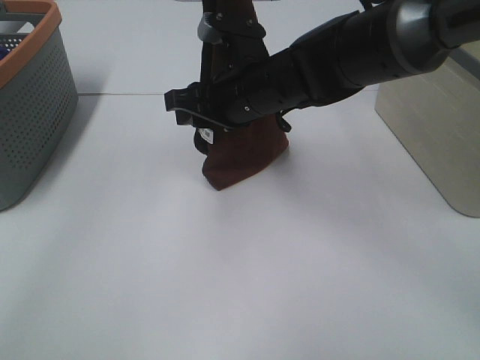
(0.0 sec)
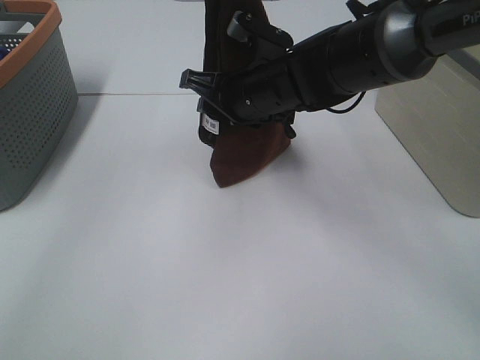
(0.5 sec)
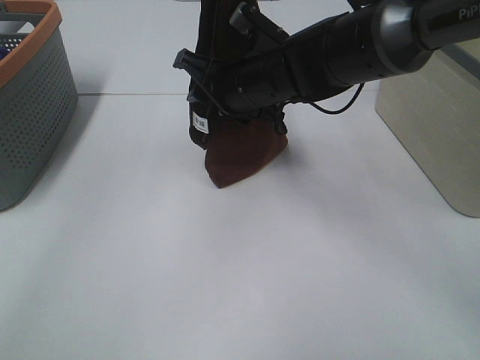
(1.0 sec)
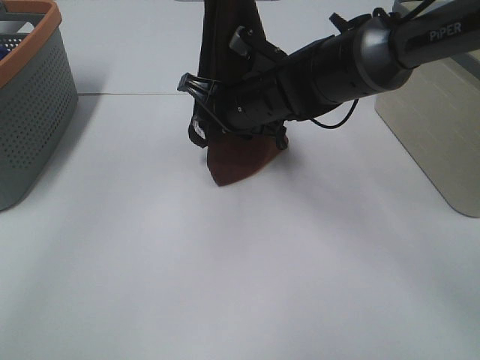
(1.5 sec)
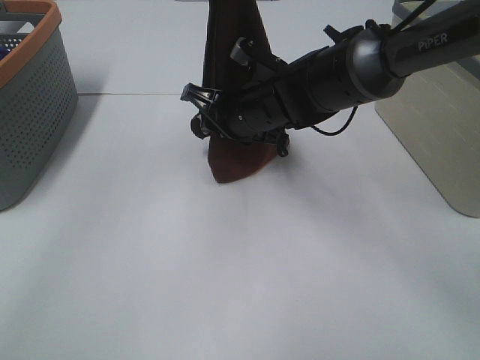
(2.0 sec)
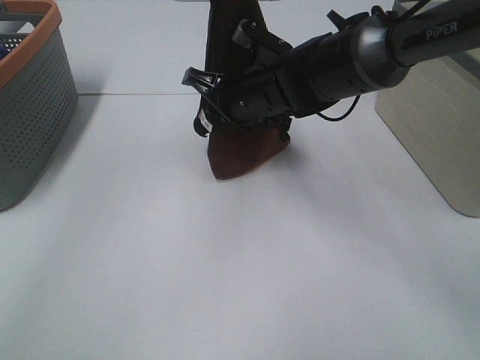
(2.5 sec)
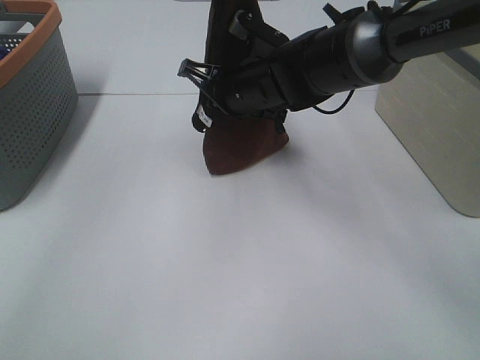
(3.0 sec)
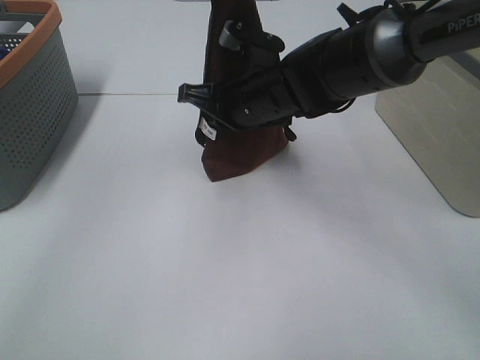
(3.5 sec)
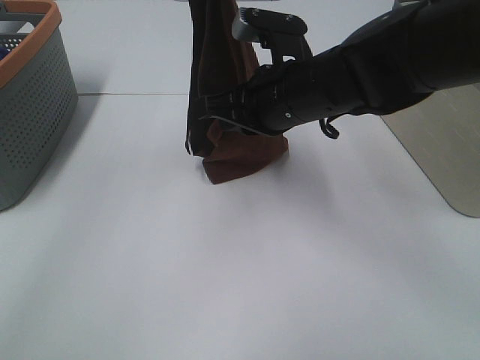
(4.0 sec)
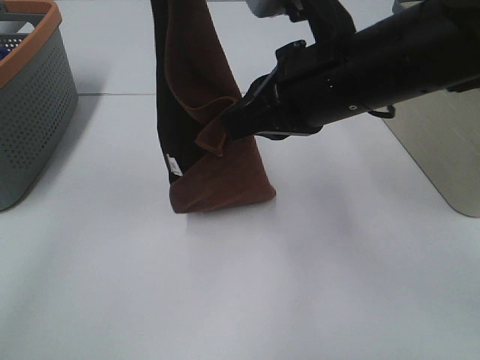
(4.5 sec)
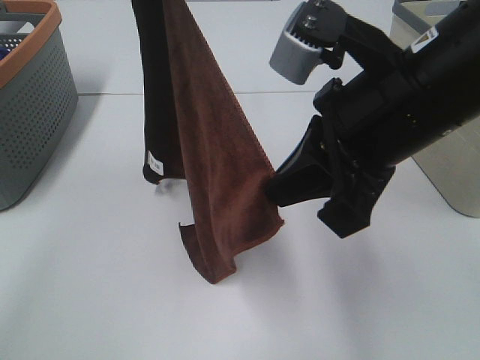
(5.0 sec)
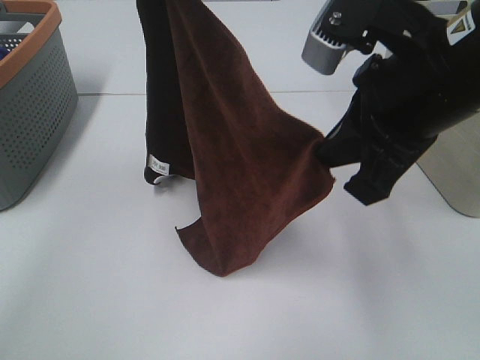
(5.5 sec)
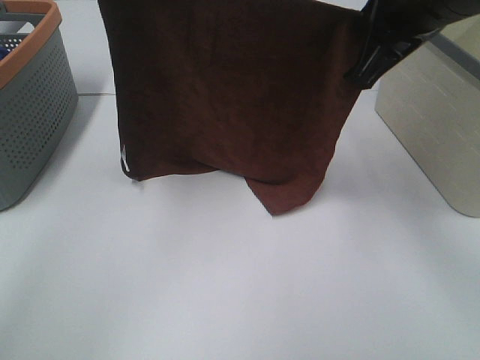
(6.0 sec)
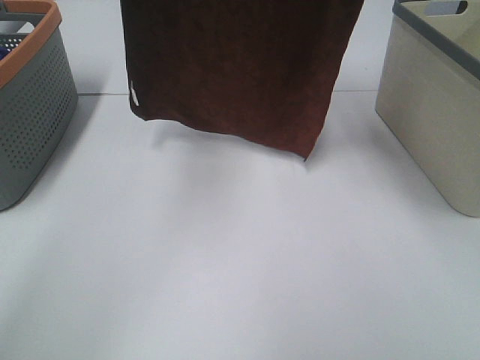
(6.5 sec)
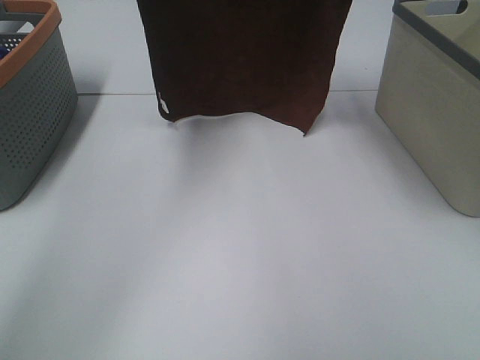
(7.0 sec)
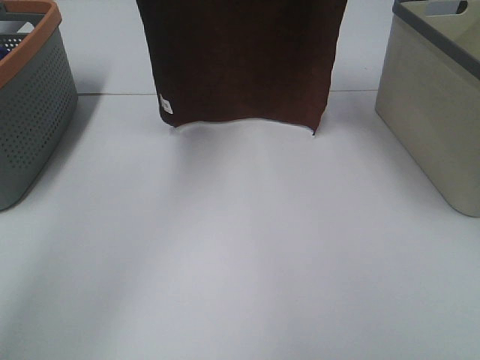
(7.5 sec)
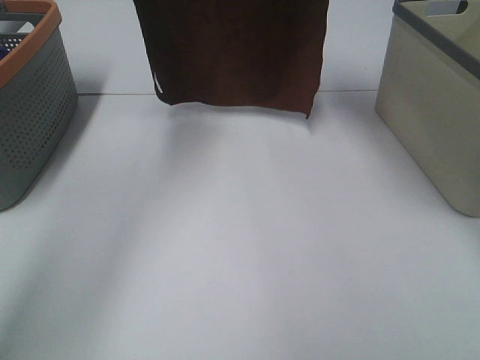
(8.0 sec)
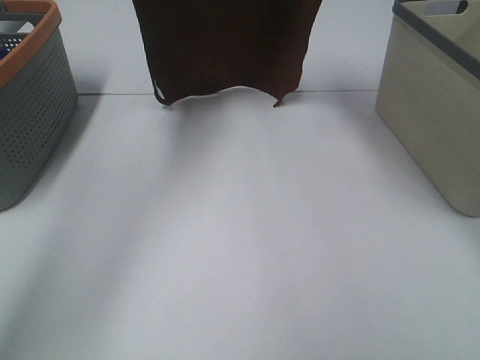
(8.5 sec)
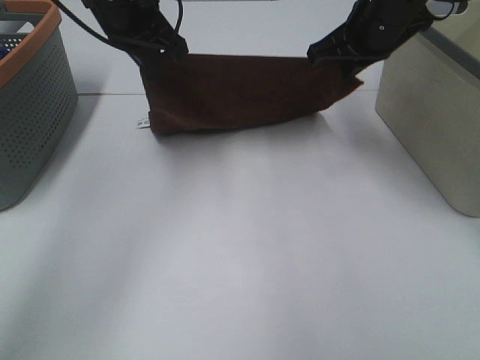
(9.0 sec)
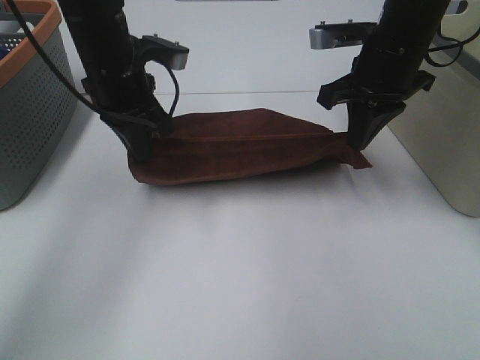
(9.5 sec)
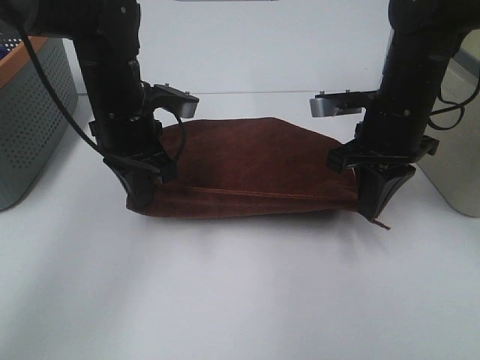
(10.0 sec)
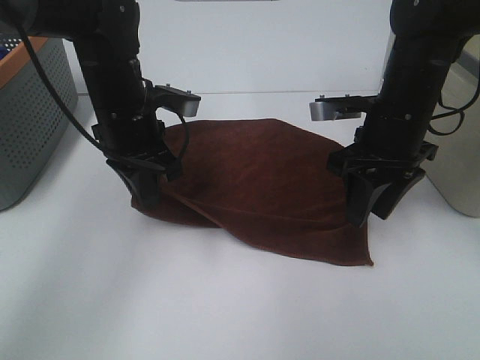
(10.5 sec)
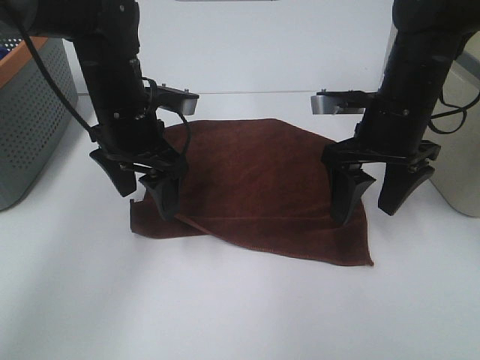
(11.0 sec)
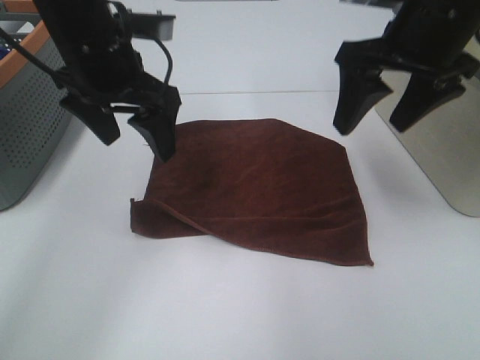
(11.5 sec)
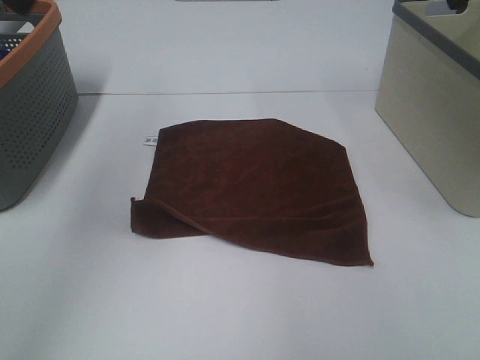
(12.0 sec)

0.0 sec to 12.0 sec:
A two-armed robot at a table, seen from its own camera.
Task of the whole recording: Remove the towel and place it.
Step, 1.5 sec to 4.5 sec: Left hand: spread the brown towel flat on the table.
Step, 1.5 sec to 4.5 sec: Right hand: spread the brown towel flat on the table.
2.0 sec to 4.0 sec: The right gripper travels backward and upward by about 10 cm, and closes its fingers.
4.0 sec to 6.0 sec: The left gripper shifts roughly 5 cm to the left. The right gripper shifts approximately 10 cm upward.
6.0 sec to 8.0 sec: The left gripper goes approximately 10 cm forward. The right gripper travels forward by roughly 20 cm.
8.0 sec to 10.0 sec: Both grippers travel together downward and backward, roughly 20 cm.
10.0 sec to 12.0 sec: The right gripper is displaced upward by some 25 cm, and opens up. Meanwhile the left gripper moves upward and to the left, roughly 25 cm, and opens its fingers.

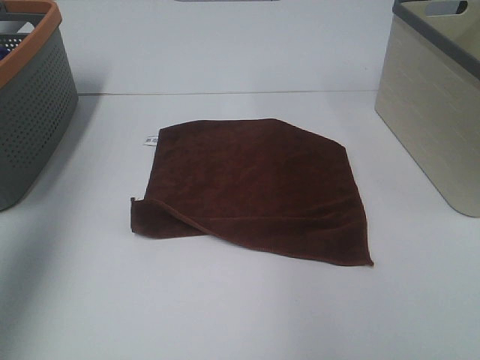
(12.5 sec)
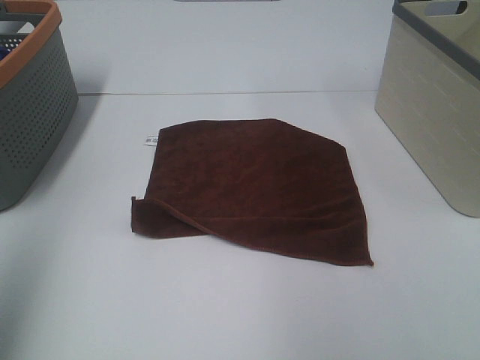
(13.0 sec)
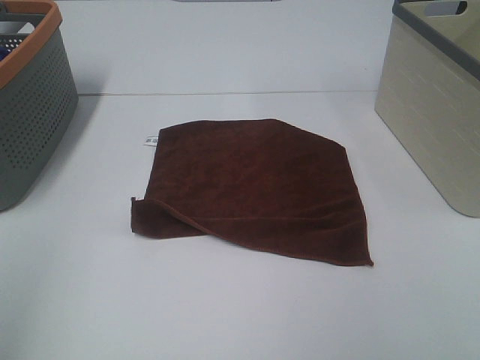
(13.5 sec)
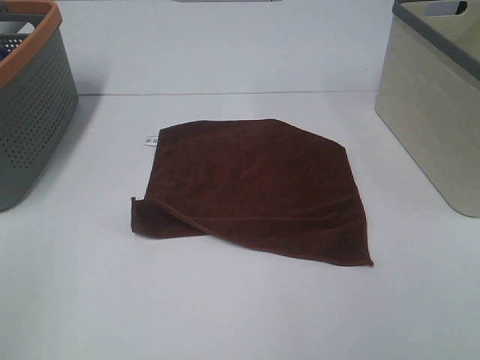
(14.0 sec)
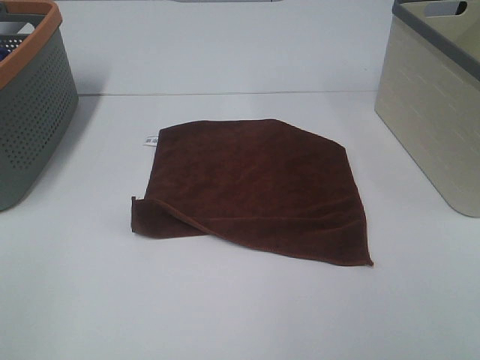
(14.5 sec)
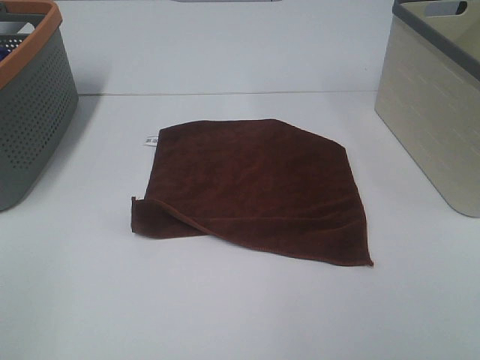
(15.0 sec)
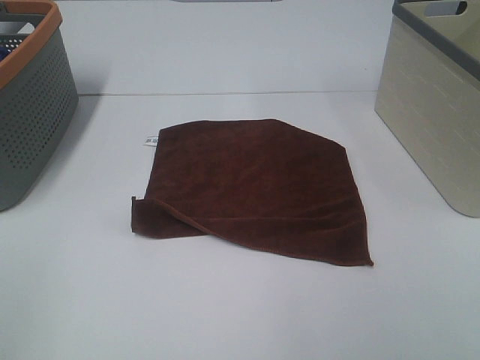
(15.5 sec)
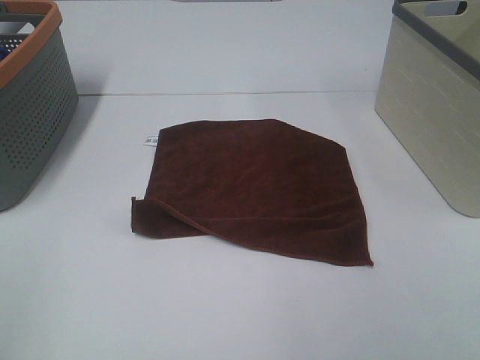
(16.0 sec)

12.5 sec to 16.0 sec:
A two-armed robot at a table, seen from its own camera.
Task of the whole recording: Remove the towel and place it.
12.5 sec to 14.5 sec: The left gripper moves backward and downward, some 30 cm.

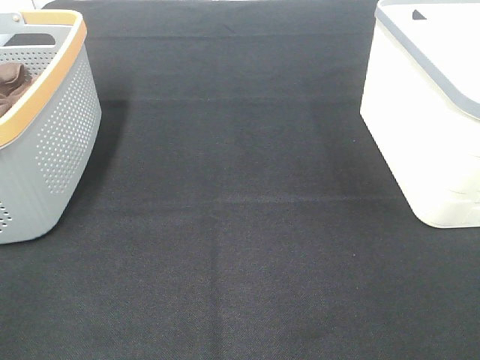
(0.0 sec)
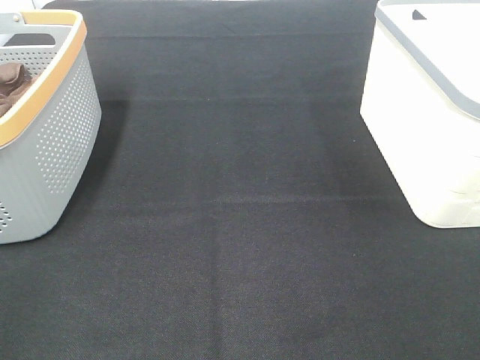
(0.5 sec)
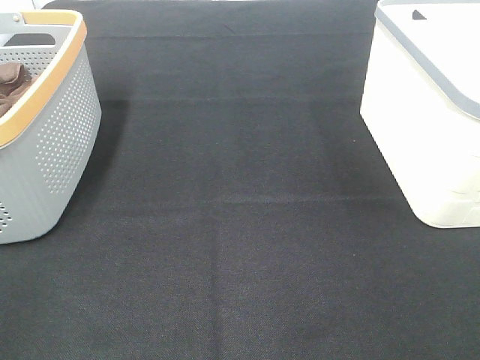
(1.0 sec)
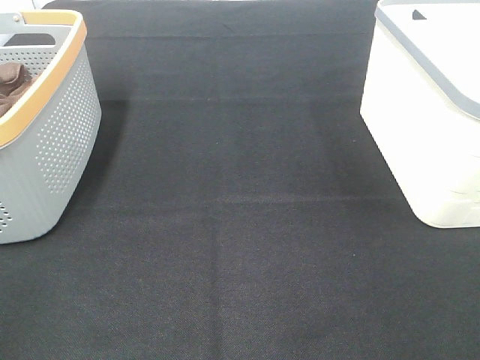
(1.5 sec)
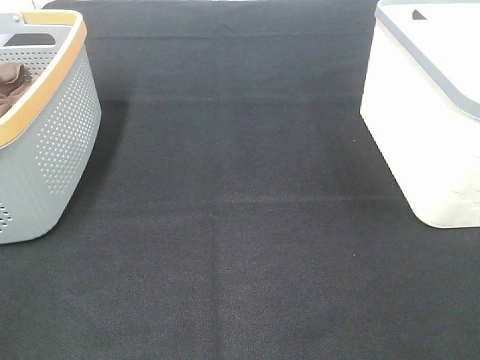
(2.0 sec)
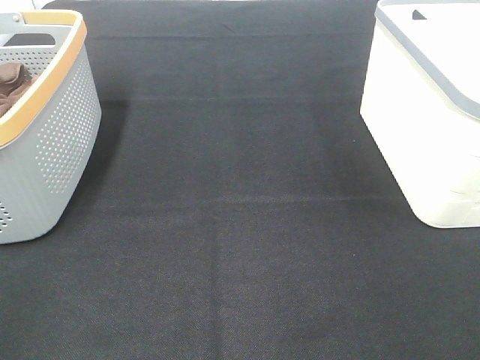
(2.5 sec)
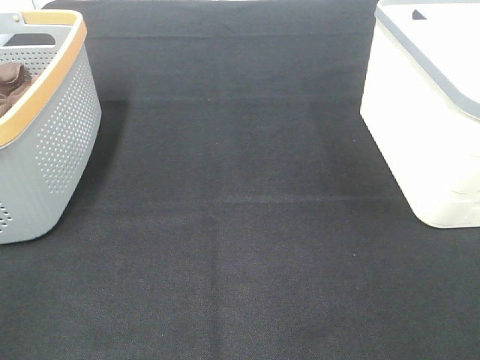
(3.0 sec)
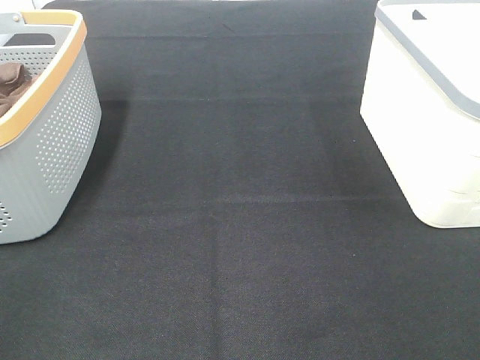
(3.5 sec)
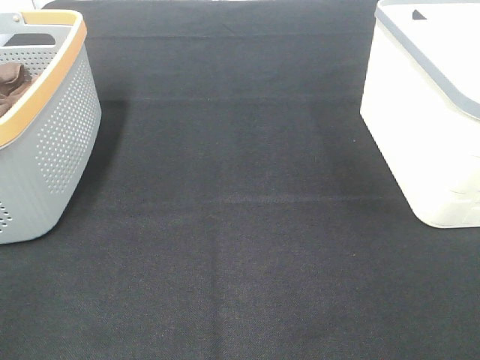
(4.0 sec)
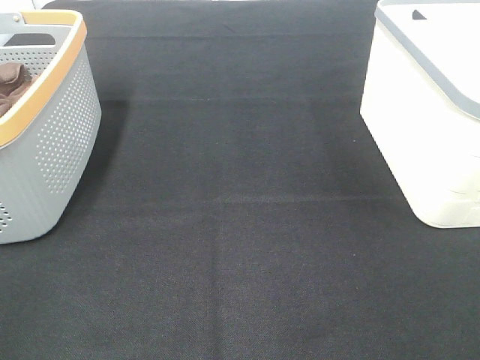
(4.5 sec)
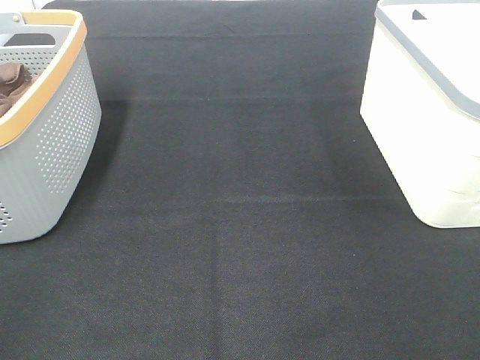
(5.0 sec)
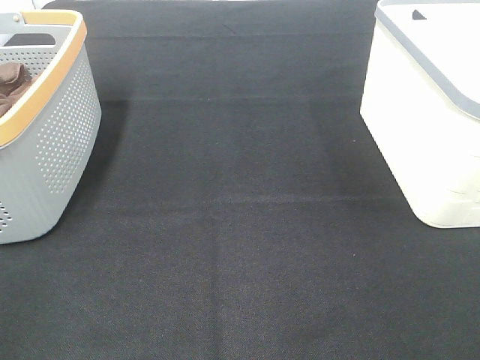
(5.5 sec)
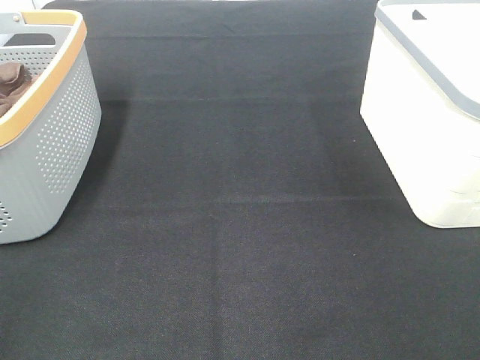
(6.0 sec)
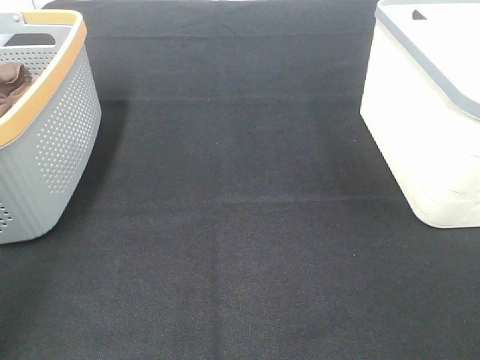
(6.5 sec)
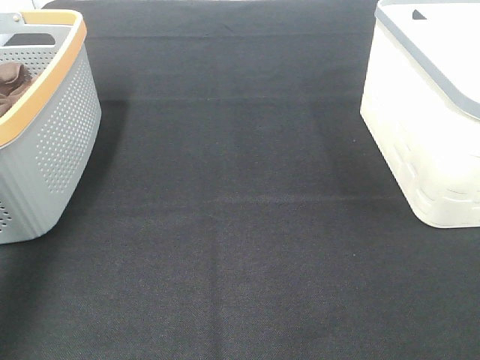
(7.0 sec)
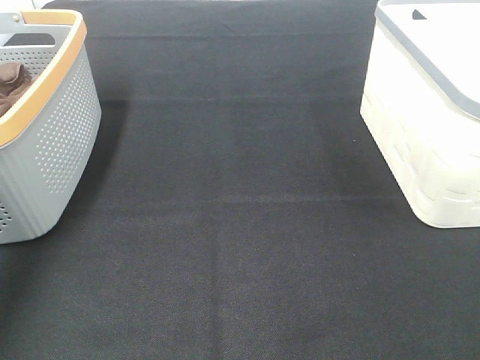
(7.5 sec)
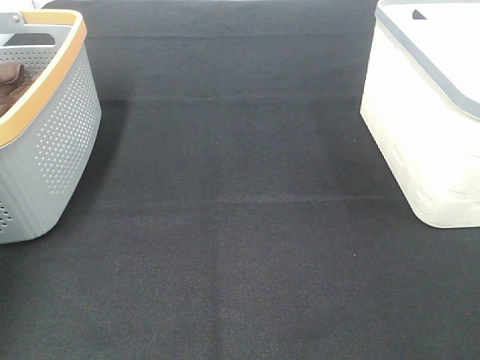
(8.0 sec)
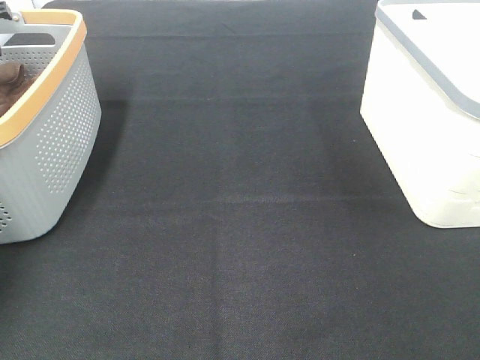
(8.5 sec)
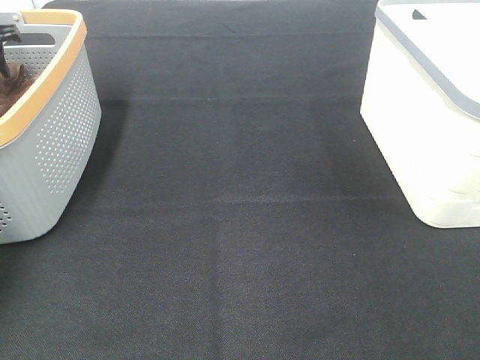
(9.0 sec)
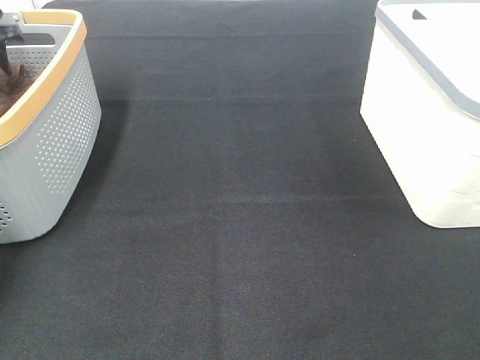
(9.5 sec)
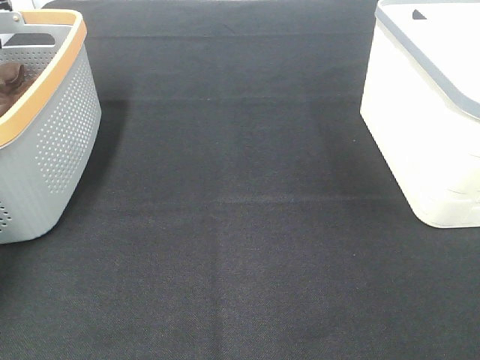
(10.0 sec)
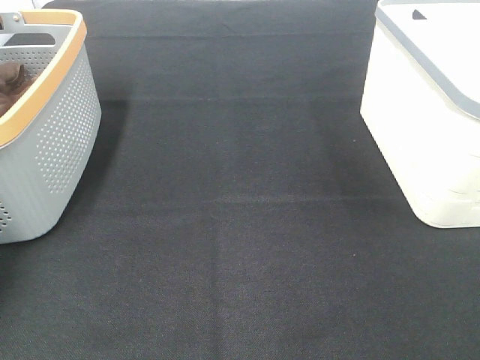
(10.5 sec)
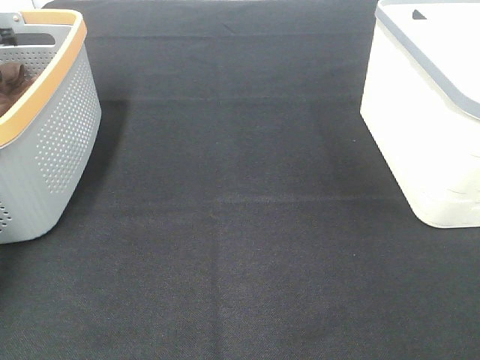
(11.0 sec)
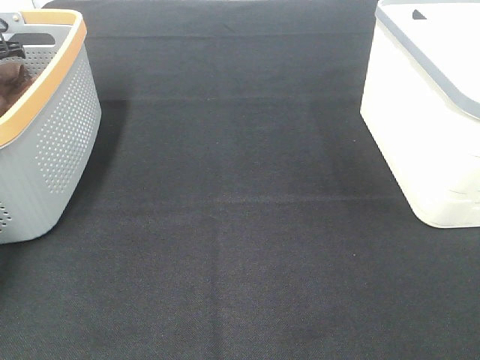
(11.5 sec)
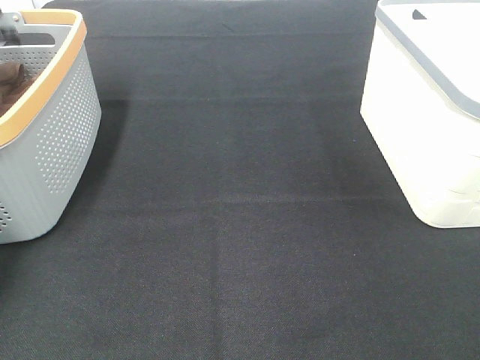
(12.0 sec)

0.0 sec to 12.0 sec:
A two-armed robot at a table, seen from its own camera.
Task of the whole recording: Remove the towel and place it.
0.0 sec to 6.0 sec: Both grippers stay about where they are.
6.0 sec to 8.0 sec: The left gripper moves forward, approximately 50 cm.
